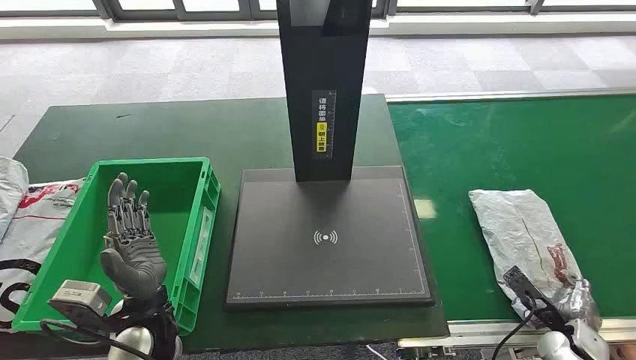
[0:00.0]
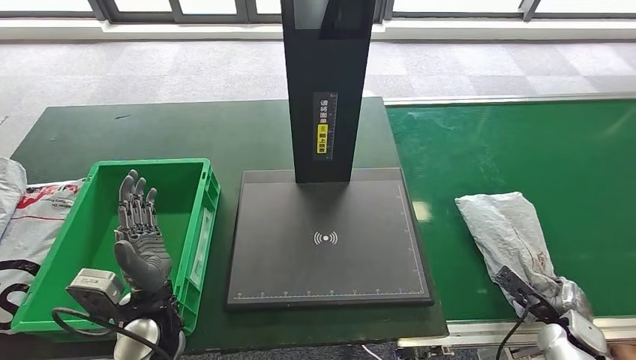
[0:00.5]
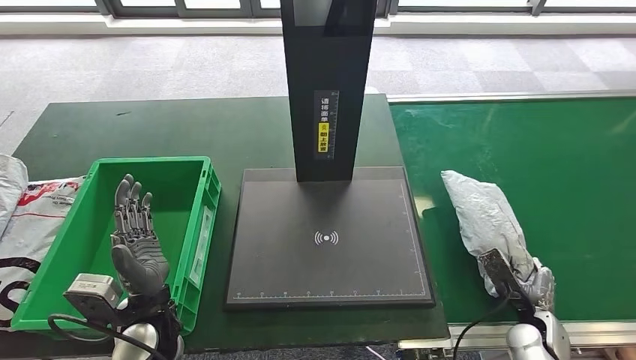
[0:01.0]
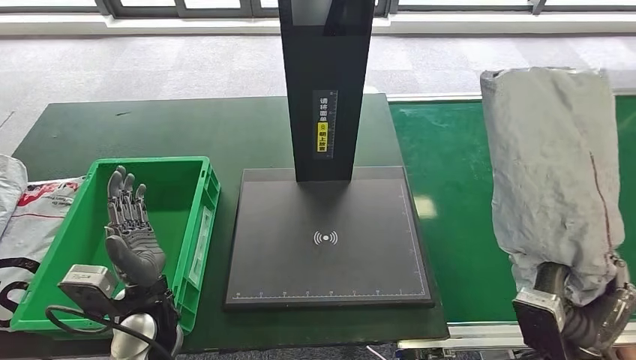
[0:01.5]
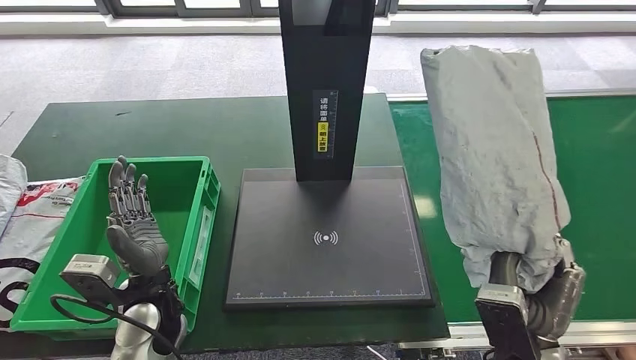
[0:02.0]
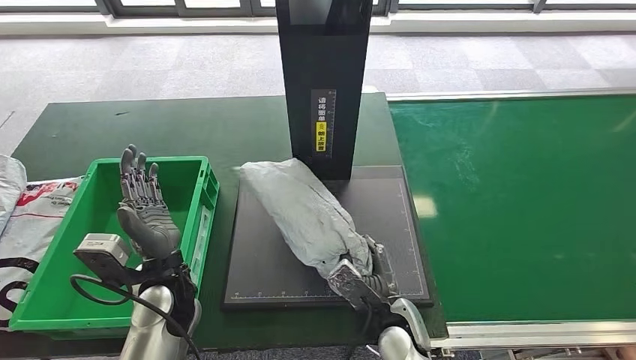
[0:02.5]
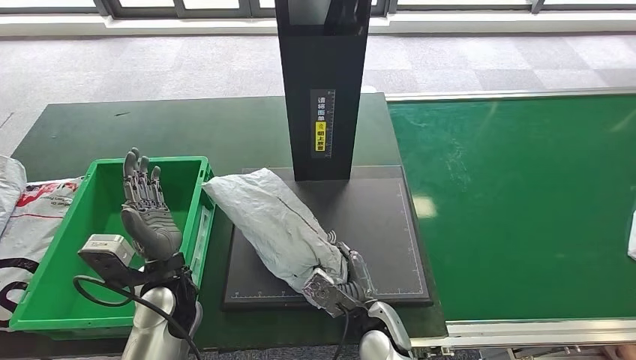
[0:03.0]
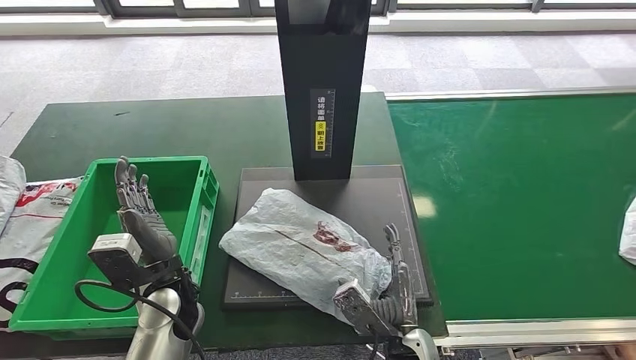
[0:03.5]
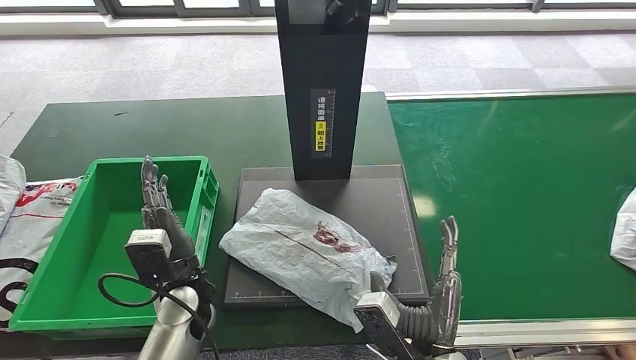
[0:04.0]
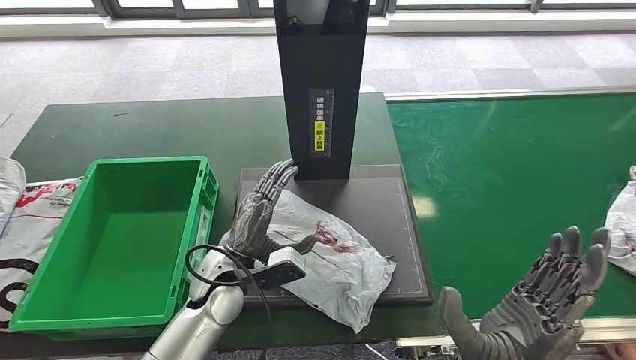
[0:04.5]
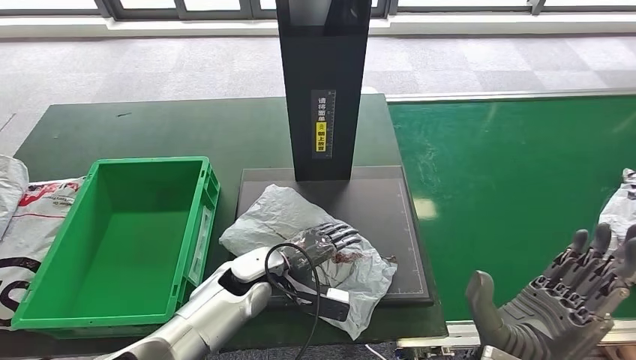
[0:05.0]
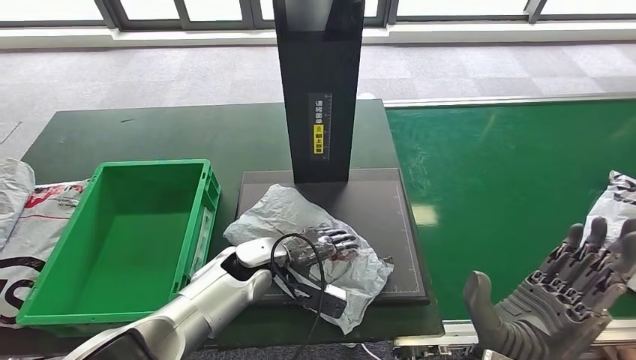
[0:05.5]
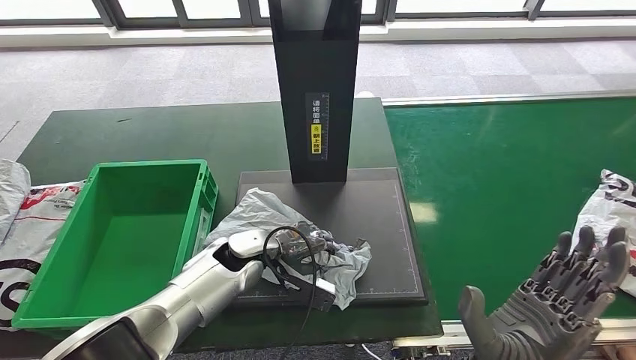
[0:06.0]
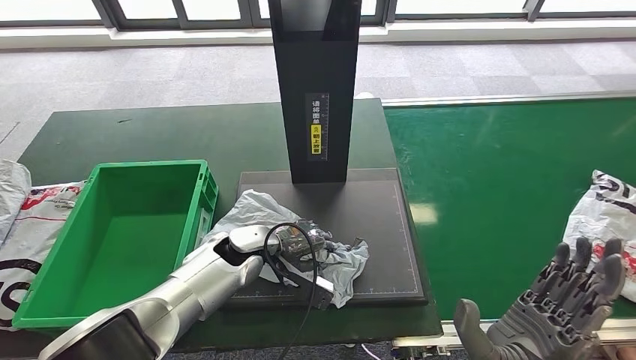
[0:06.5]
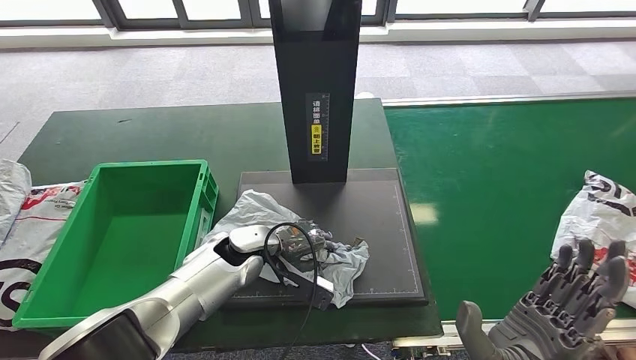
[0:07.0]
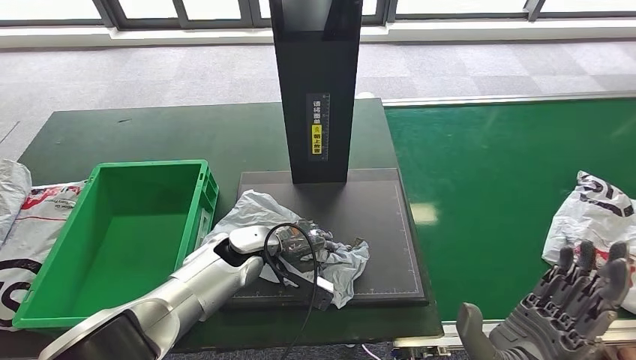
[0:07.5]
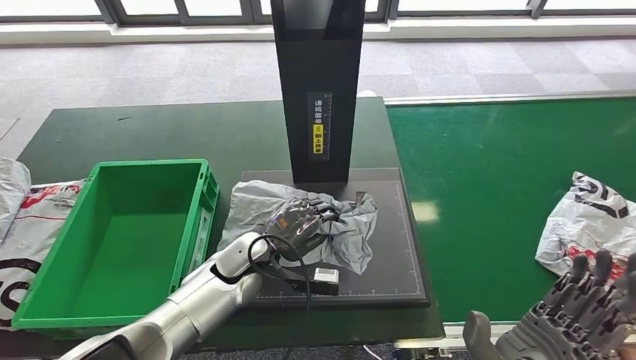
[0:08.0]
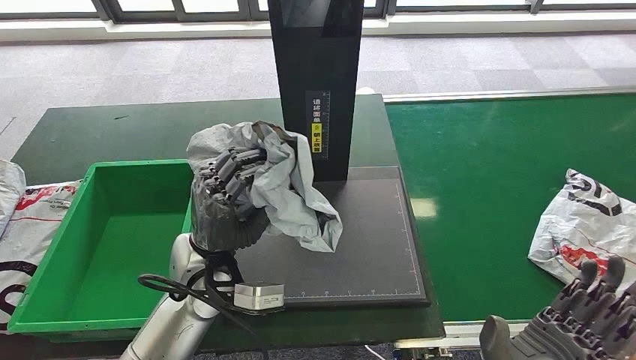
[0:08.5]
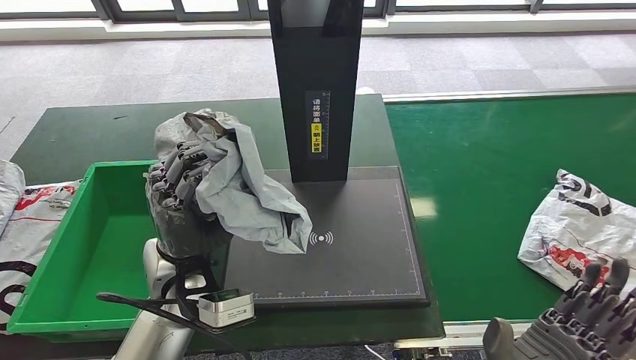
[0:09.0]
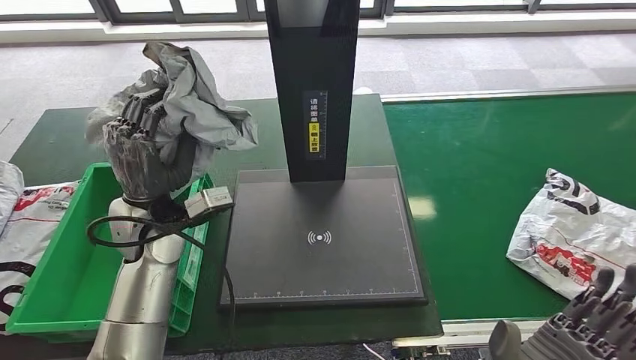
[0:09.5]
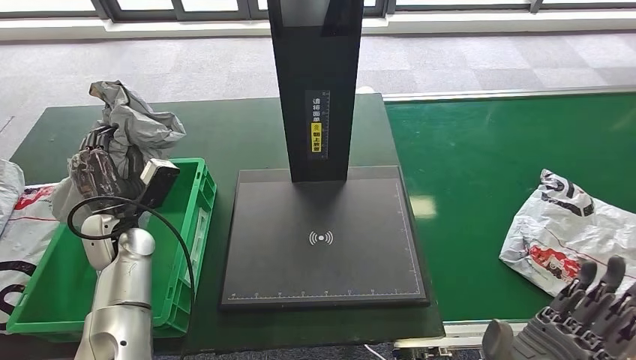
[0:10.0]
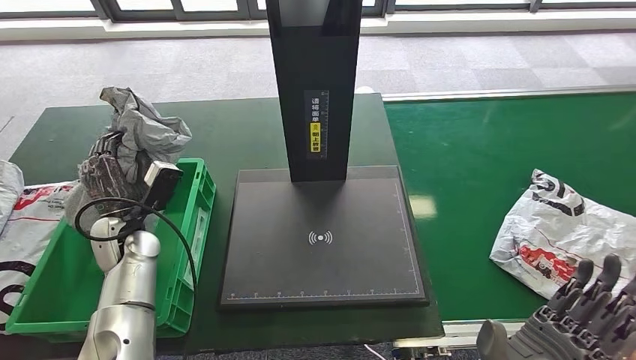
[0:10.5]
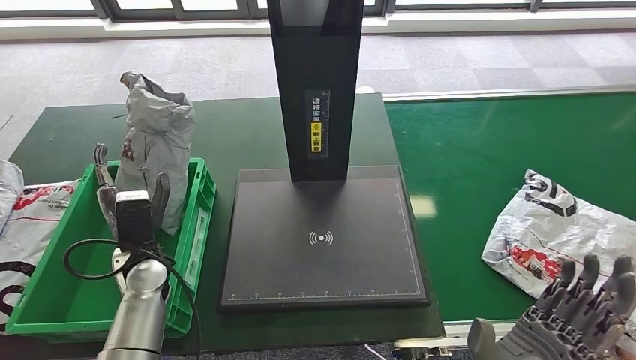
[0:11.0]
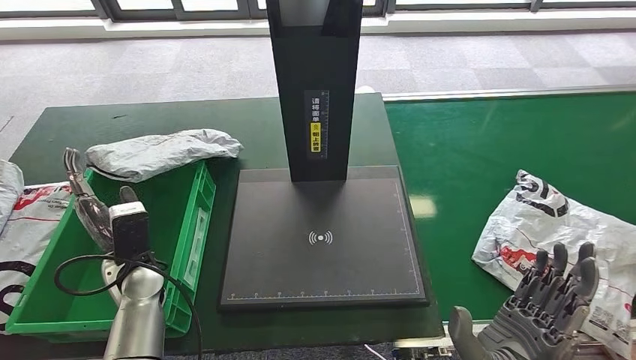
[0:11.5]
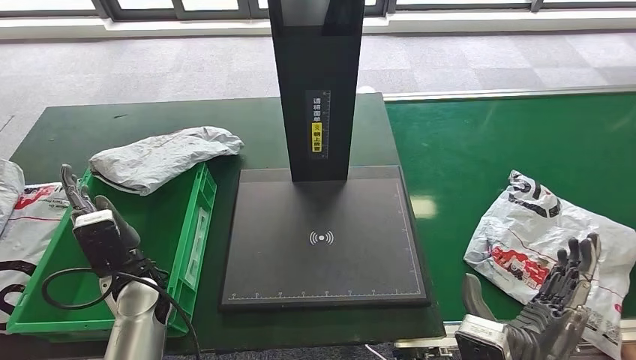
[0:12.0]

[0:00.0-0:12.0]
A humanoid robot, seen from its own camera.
Step, 0:00.0 to 0:01.5: Take the parcel off the conveyor belt.
Step, 0:02.0 to 0:04.5: Place the parcel onto the inbound machine.
Step, 0:05.0 to 0:09.5: Pick up the parcel from the inbound machine.

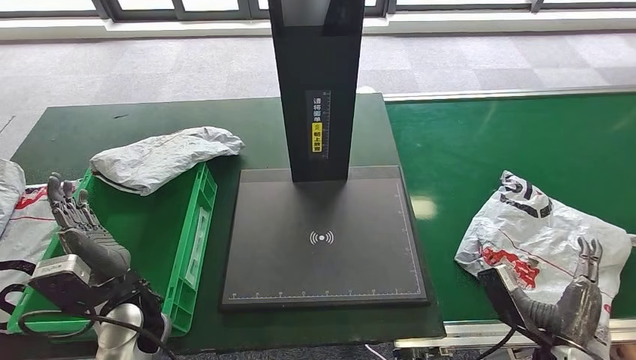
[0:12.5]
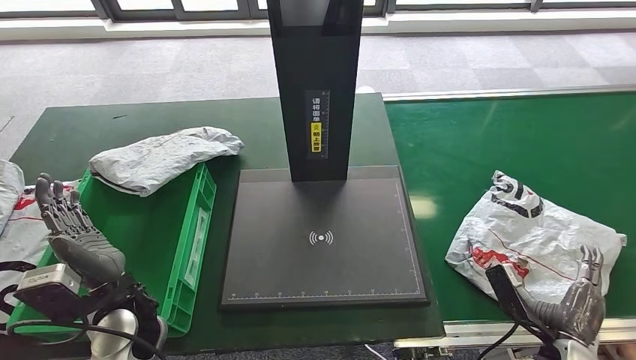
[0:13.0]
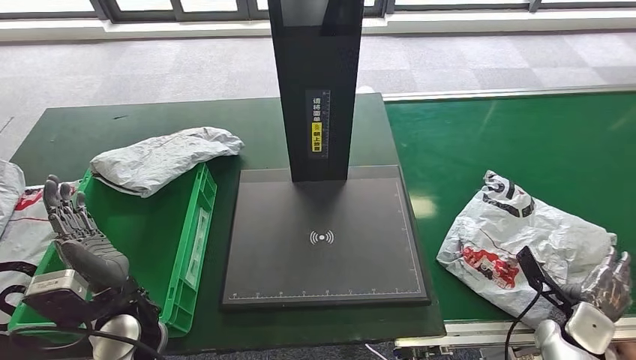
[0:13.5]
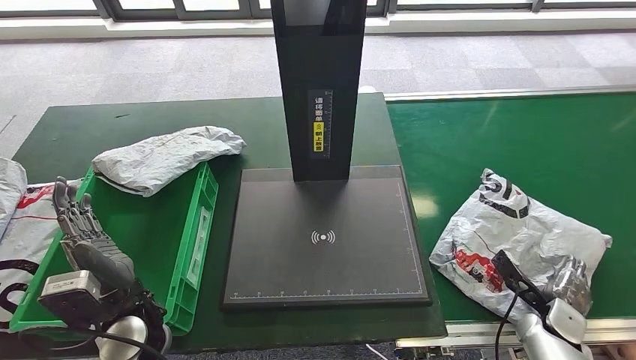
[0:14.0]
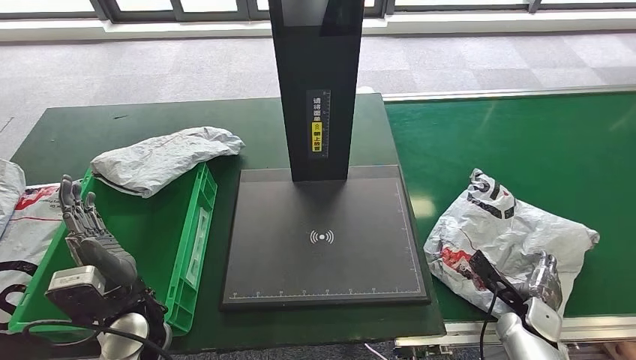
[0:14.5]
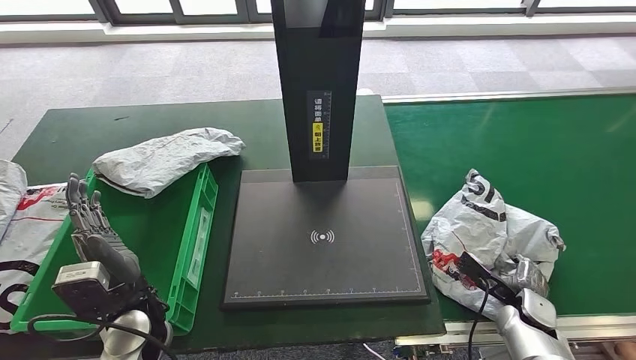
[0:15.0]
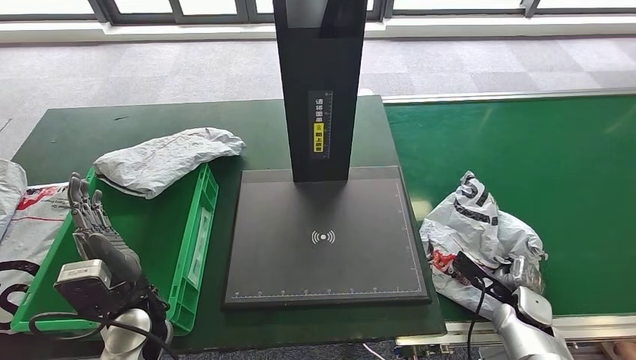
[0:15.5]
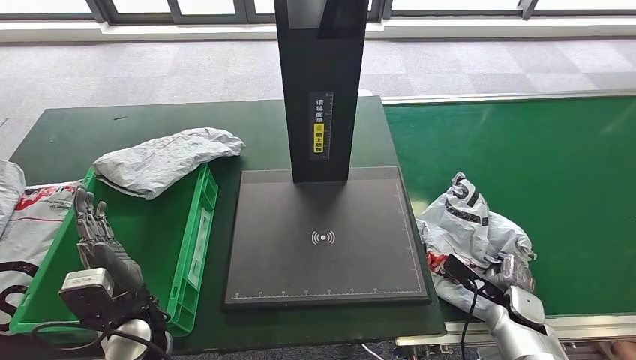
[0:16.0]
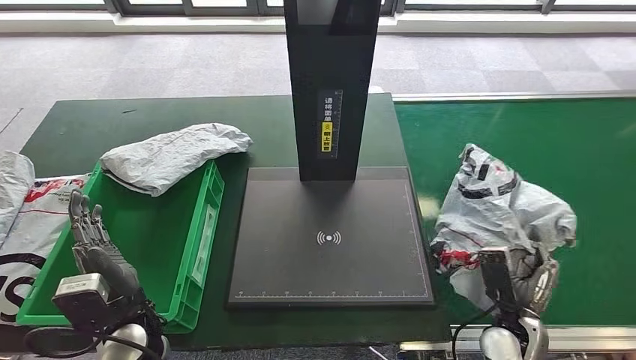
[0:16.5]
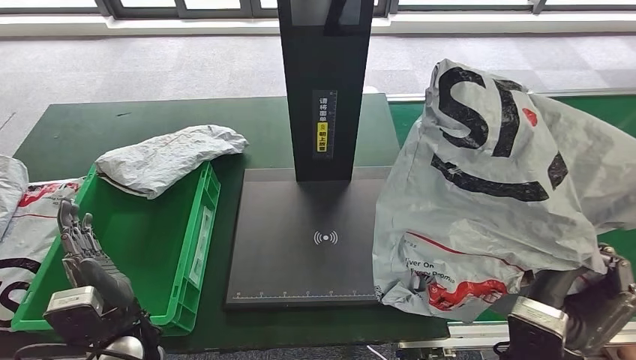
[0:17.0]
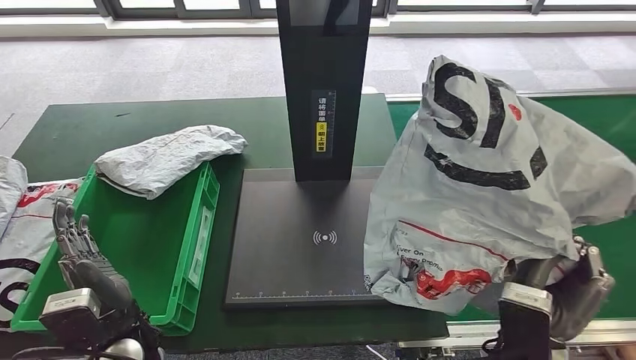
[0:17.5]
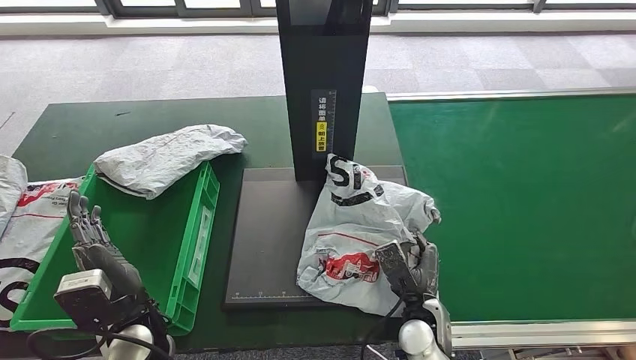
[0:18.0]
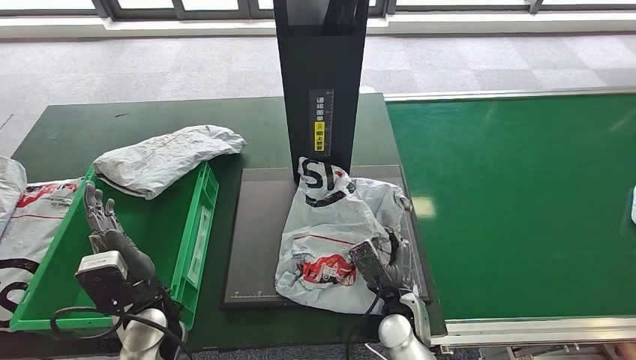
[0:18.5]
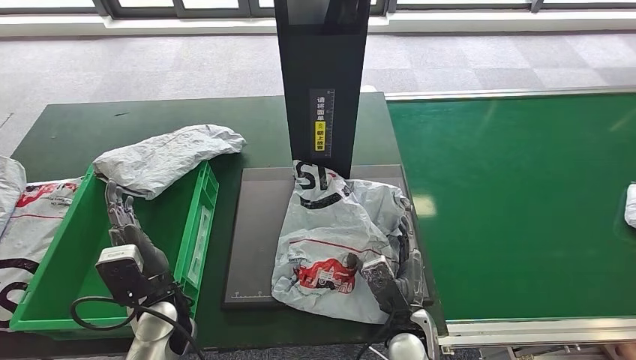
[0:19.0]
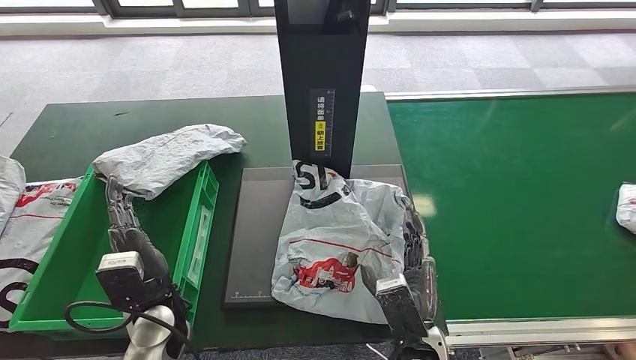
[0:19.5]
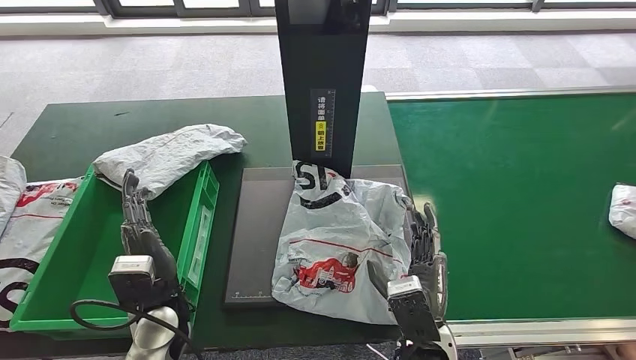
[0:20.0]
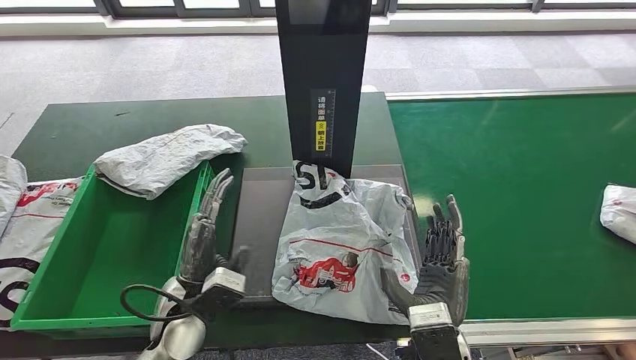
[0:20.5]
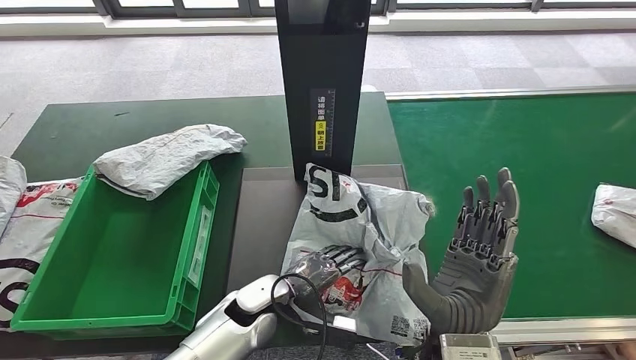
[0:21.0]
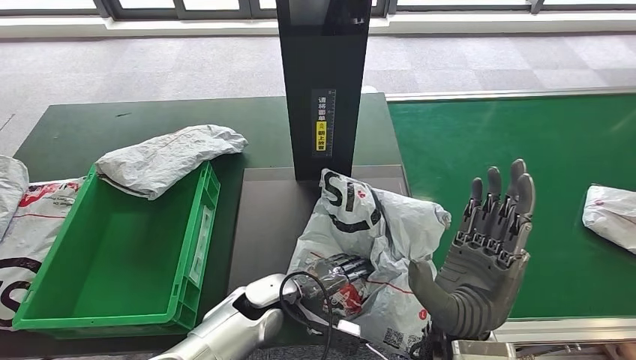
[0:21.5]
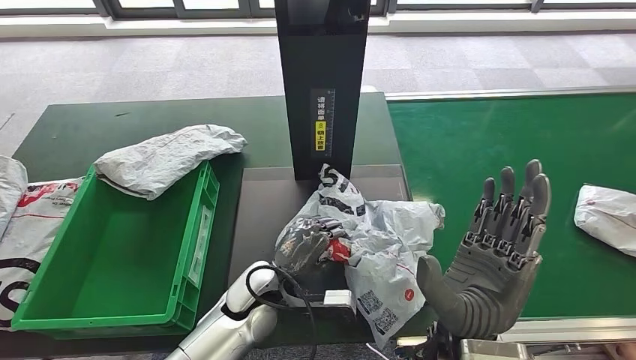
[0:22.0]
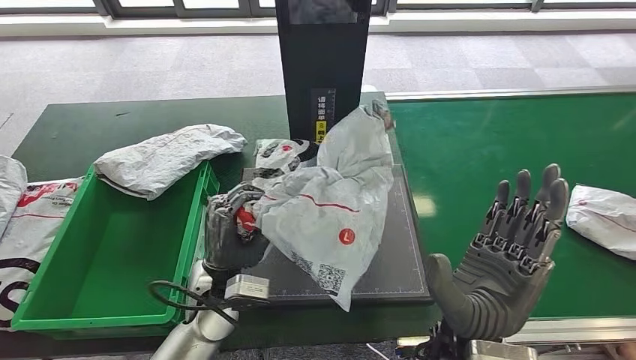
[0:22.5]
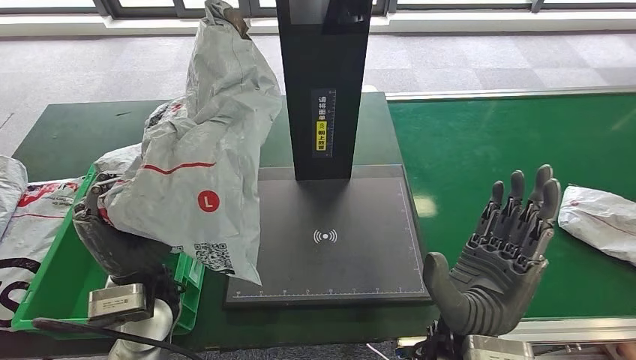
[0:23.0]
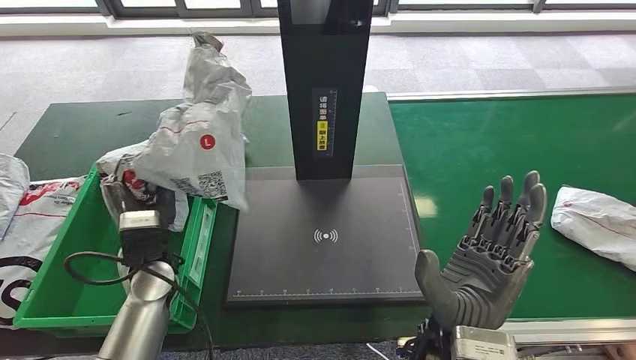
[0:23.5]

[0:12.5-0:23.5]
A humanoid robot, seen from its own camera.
Step, 0:14.5 to 0:17.0: Pick up the parcel from the conveyor belt.
Step, 0:17.5 to 0:19.5: Place the parcel onto the inbound machine.
Step, 0:20.0 to 0:22.5: Pick up the parcel from the inbound machine.
0:12.5 to 0:14.5: The right hand is displaced downward, forward and to the right by approximately 15 cm.
0:18.0 to 0:20.0: The right hand heads upward and backward, covering about 10 cm.
